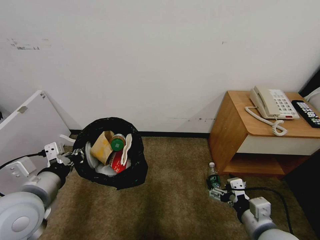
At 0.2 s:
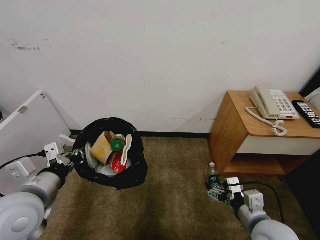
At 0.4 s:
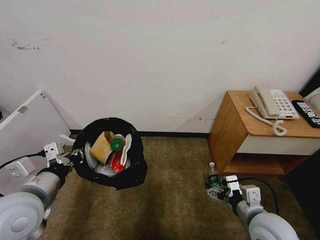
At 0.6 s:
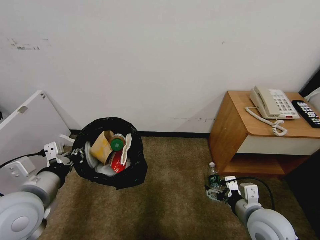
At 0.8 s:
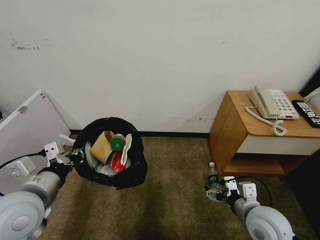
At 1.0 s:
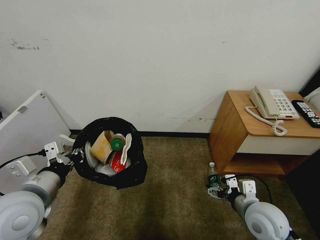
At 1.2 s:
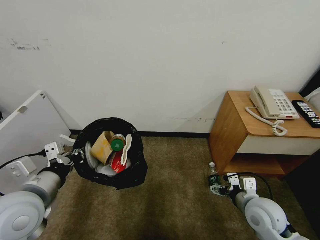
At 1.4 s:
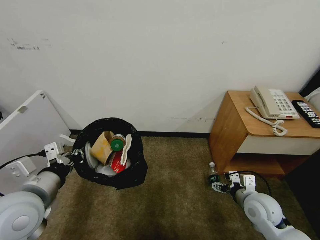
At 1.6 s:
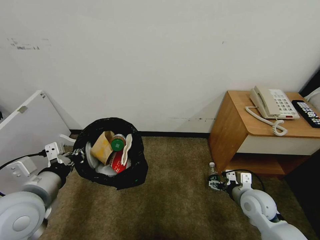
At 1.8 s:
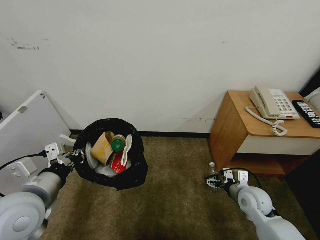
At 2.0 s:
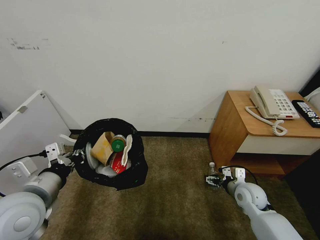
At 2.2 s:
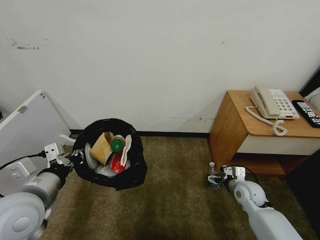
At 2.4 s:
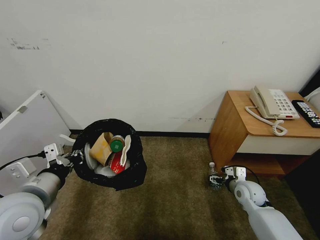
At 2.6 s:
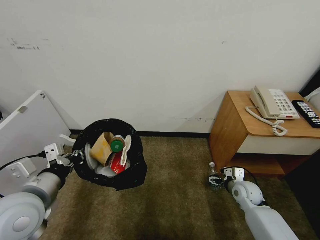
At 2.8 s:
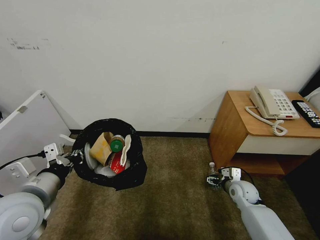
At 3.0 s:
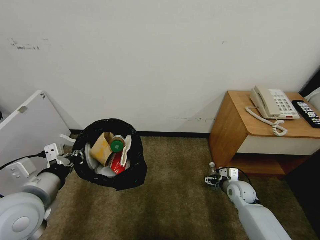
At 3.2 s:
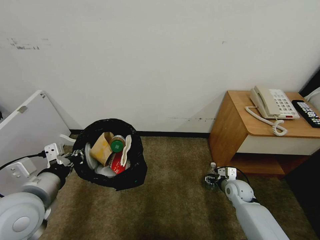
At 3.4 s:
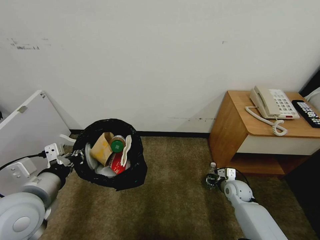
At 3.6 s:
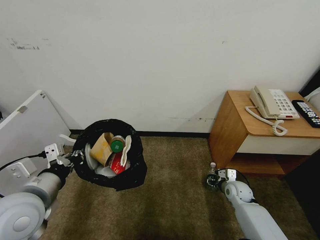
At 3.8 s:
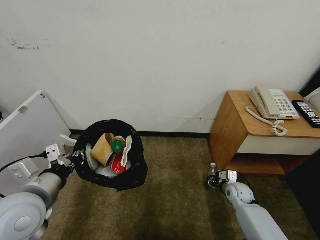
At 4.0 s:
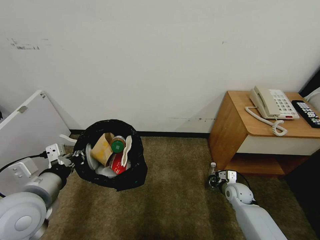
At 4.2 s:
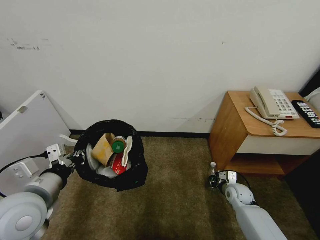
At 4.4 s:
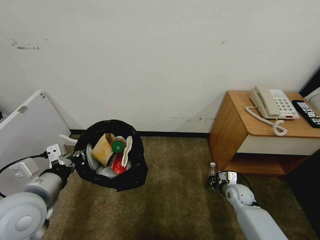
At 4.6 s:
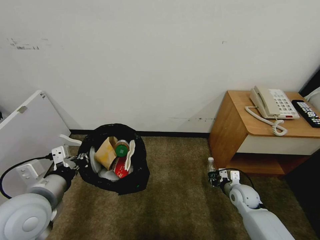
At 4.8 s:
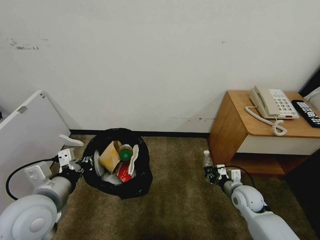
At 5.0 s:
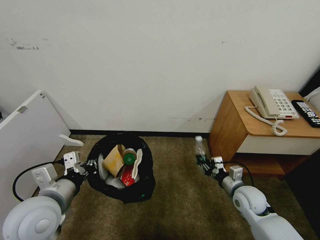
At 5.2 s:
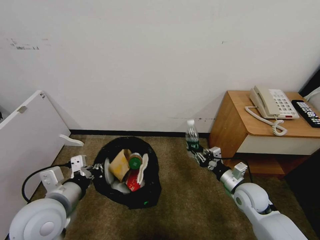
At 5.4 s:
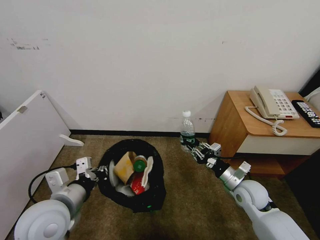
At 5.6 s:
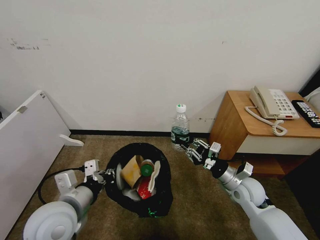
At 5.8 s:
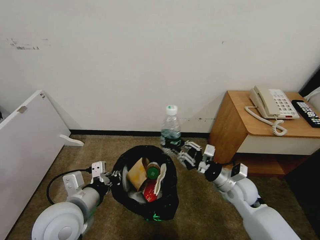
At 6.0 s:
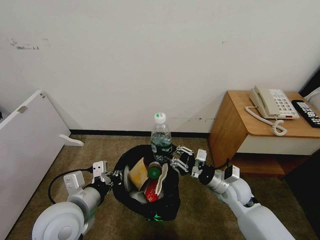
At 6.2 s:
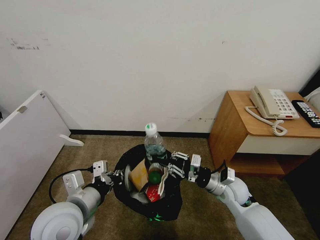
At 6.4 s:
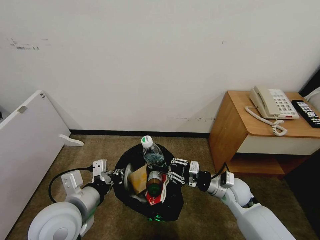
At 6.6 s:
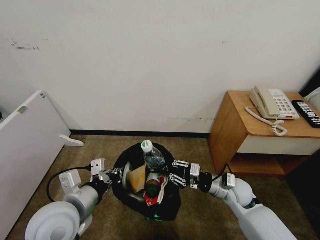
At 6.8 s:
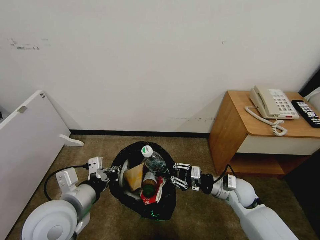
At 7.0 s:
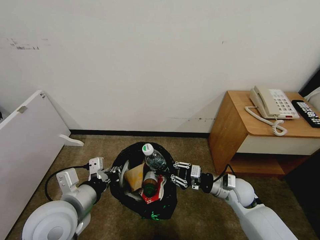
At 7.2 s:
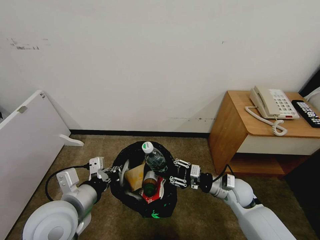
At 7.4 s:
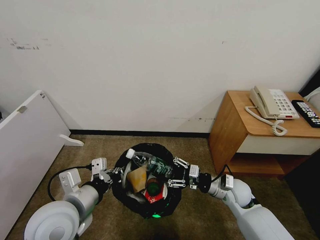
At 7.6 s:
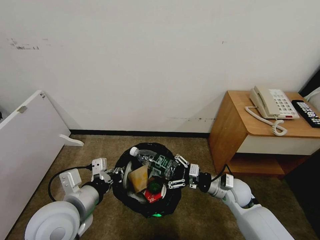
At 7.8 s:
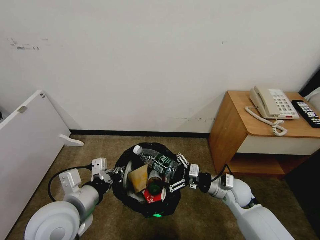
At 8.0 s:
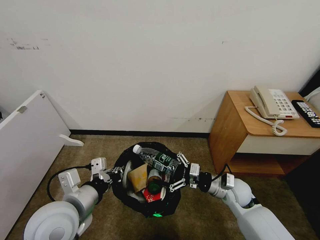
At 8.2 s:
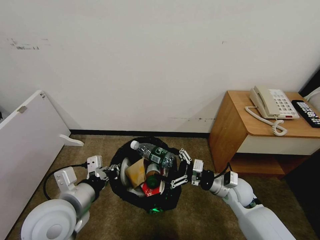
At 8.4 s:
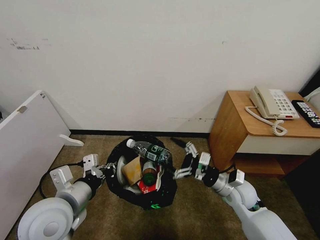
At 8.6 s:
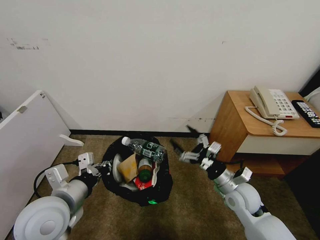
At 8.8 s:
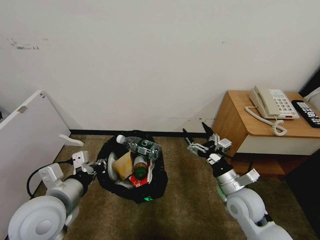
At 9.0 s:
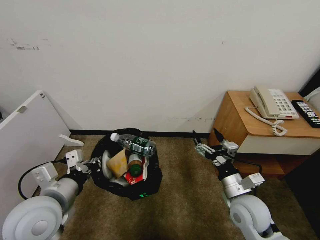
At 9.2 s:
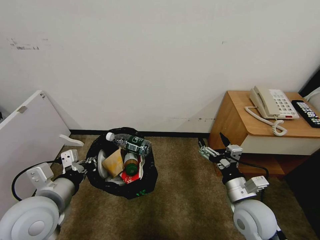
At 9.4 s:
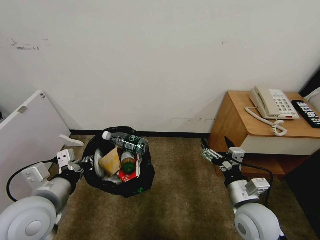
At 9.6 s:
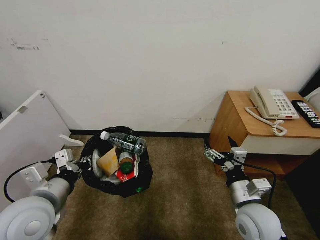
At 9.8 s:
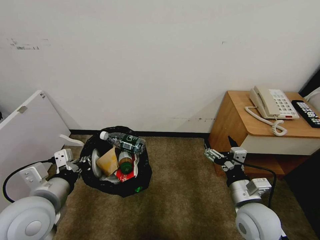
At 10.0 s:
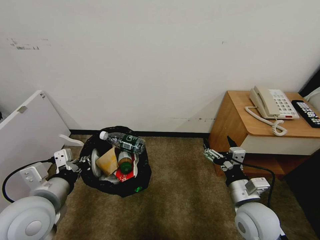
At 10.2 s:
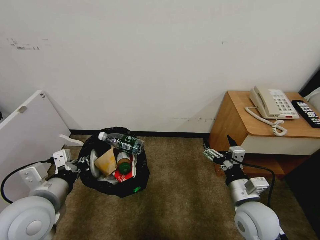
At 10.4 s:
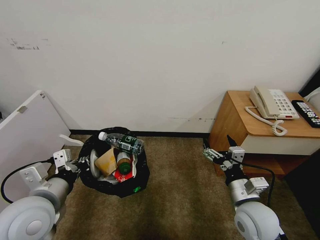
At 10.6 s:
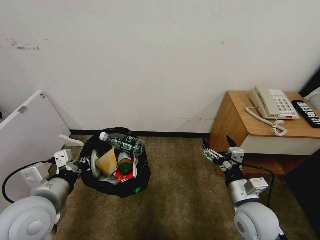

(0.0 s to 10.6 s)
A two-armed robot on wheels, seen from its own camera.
Task of the whole recording: Pick up the trash bin, then pick up the garbage from the floor and place it into the trash bin.
0.0 s - 1.6 s: The right gripper heads forward and downward, covering roughly 15 cm.
1.6 s - 3.0 s: The right gripper shifts approximately 10 cm downward and forward.
3.0 s - 4.6 s: The right gripper closes.
4.6 s - 6.0 s: The left gripper travels to the right by approximately 5 cm. The right gripper is displaced upward and to the left by approximately 15 cm.
6.0 s - 7.6 s: The right gripper opens its fingers.
7.6 s - 9.0 s: The right gripper travels backward and upward by roughly 10 cm.
9.0 s - 10.6 s: There are only small adjustments of the grippers.

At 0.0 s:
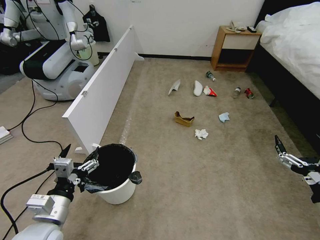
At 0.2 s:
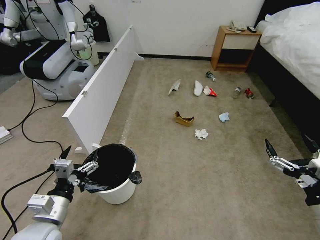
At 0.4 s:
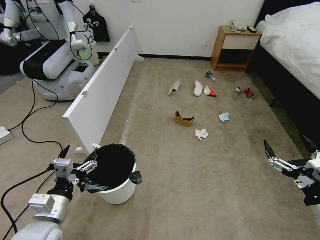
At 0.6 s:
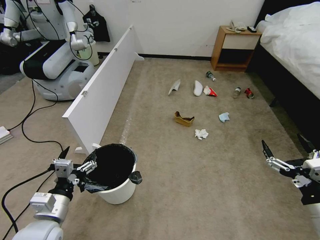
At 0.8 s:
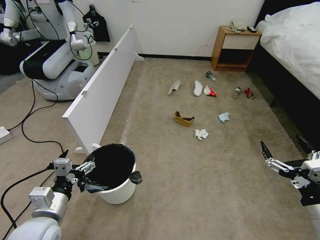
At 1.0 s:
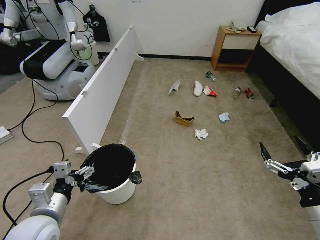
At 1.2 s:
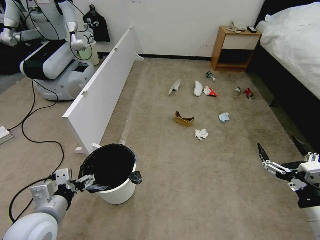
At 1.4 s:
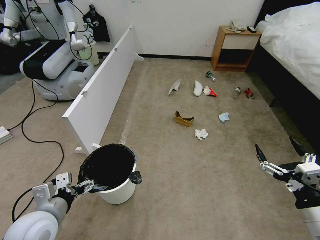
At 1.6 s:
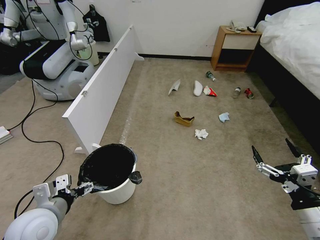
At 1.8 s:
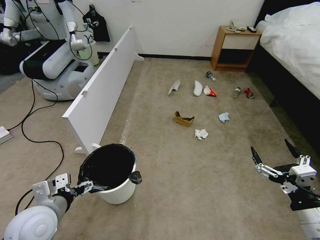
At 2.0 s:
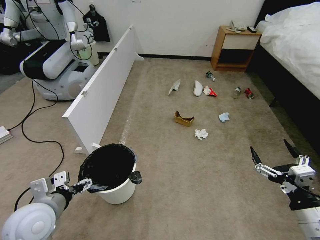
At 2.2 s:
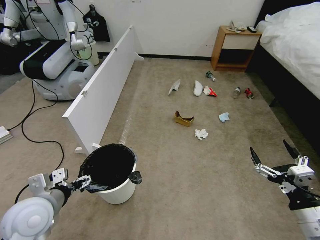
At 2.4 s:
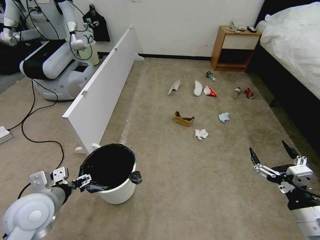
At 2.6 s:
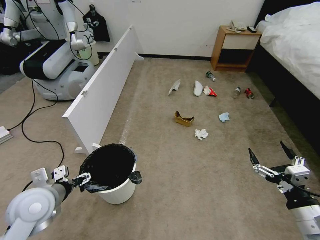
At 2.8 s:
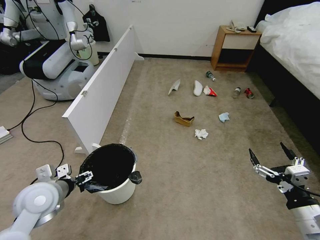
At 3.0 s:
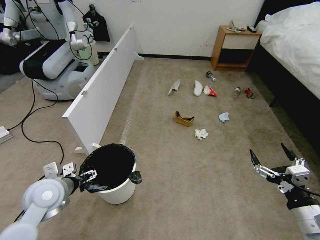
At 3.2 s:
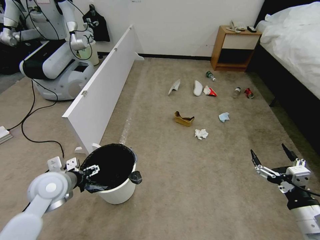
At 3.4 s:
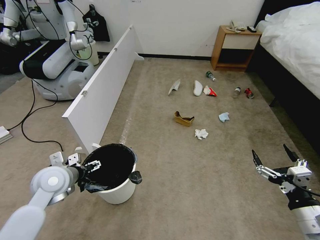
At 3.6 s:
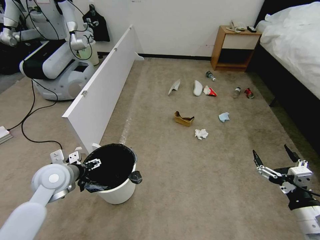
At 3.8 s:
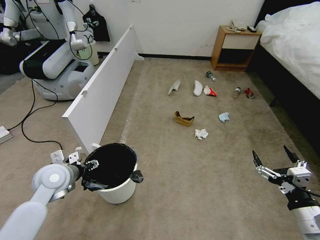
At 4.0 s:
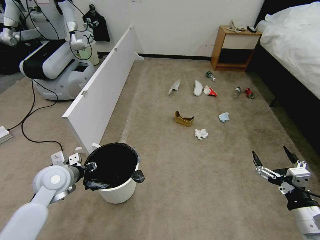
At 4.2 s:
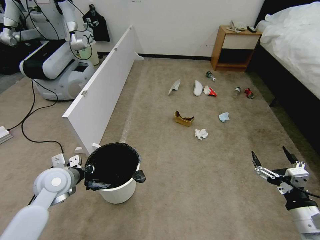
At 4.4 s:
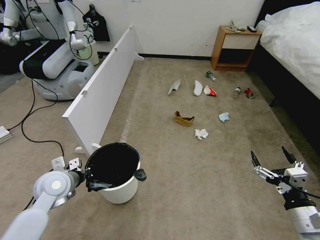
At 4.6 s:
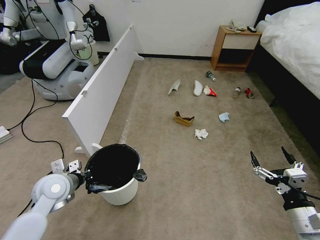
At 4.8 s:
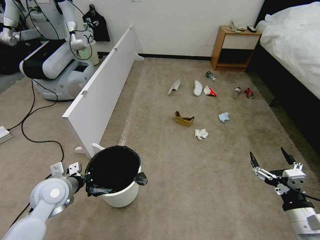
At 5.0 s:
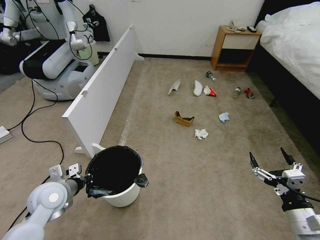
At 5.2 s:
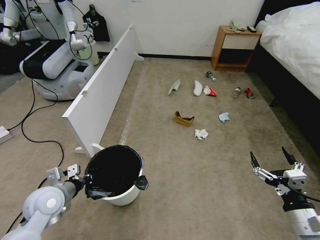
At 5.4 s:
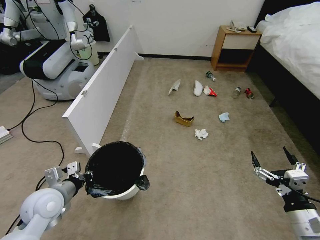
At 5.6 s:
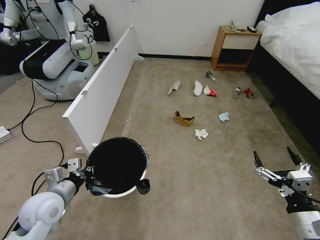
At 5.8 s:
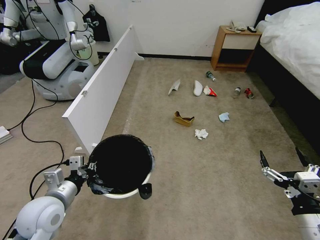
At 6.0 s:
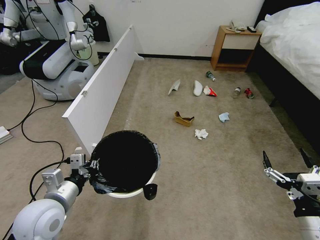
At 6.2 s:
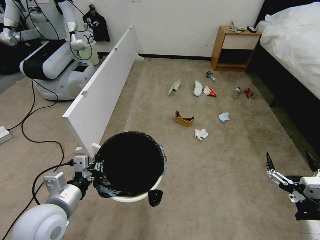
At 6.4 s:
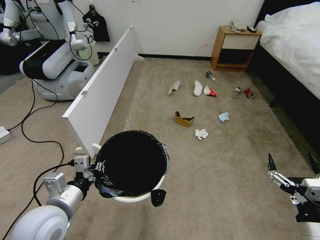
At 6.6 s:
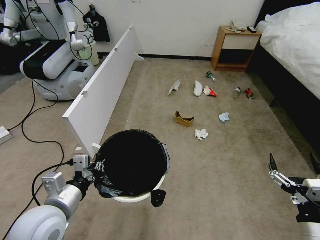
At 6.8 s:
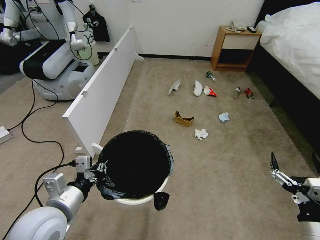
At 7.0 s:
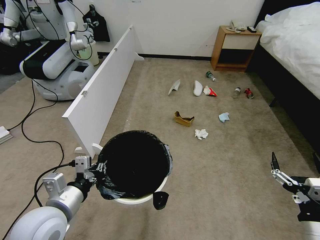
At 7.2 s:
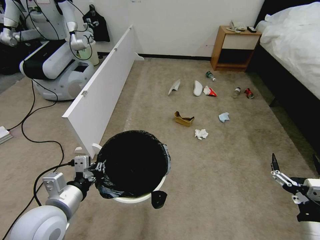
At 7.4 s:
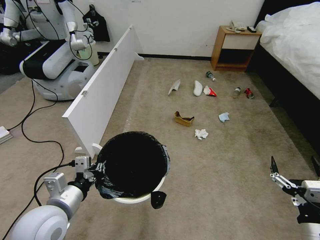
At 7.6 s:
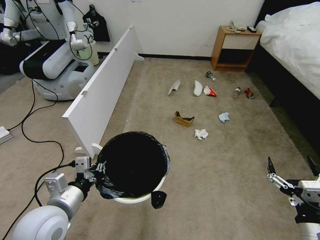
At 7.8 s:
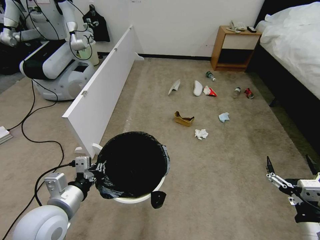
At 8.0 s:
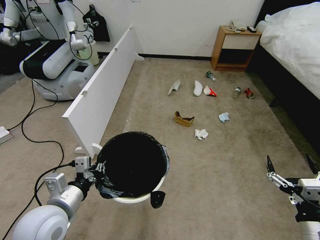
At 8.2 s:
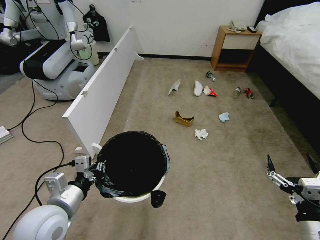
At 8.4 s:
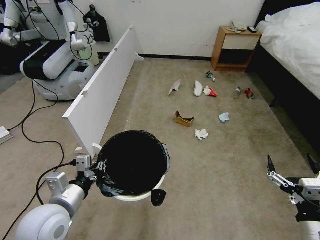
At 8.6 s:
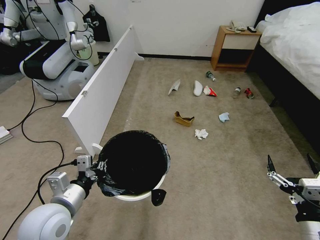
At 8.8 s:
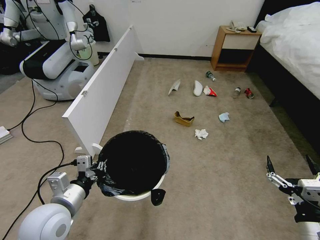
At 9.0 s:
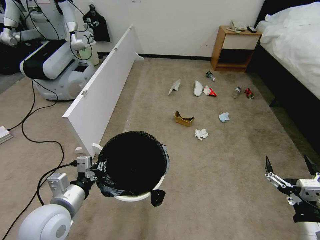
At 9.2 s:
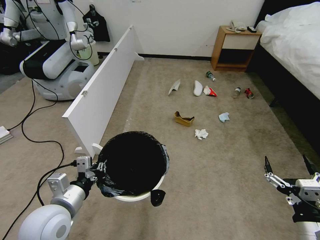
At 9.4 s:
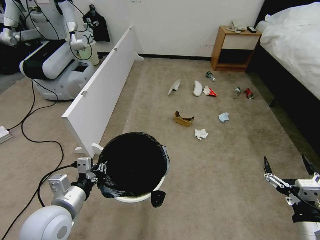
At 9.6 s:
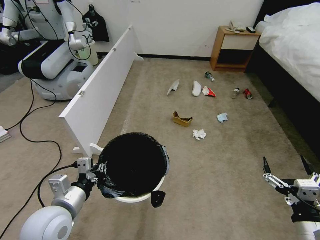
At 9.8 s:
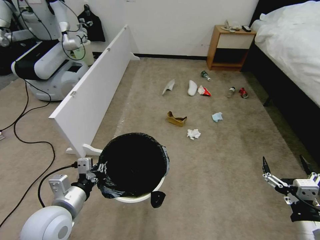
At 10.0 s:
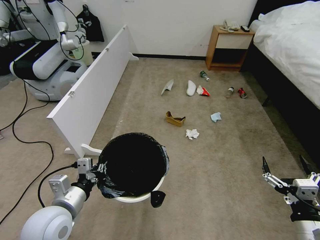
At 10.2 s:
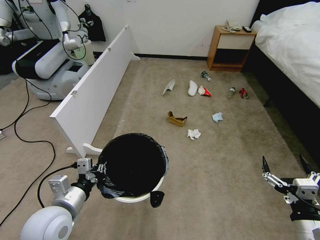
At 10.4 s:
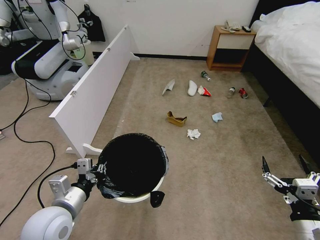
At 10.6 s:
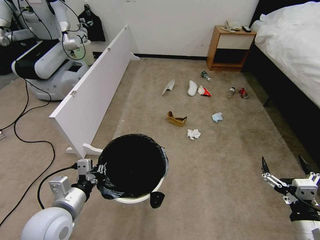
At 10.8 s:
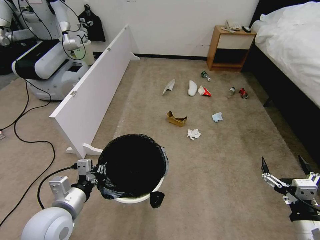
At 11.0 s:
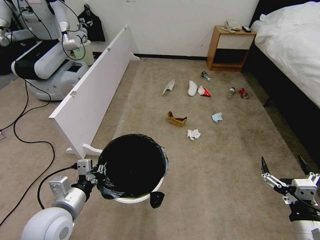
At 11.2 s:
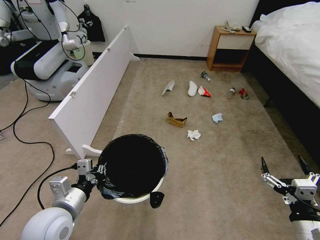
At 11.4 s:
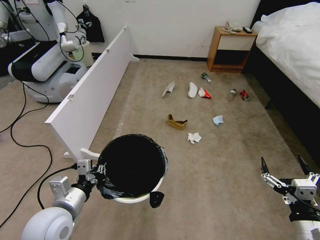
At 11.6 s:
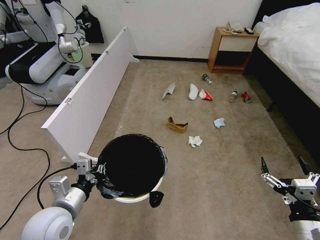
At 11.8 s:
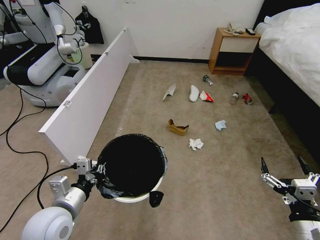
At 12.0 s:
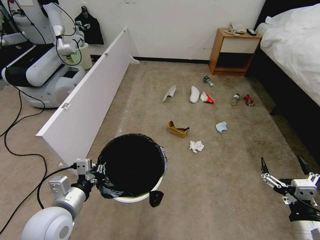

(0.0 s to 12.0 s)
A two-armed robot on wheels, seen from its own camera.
Task of the whole recording: Pick up the trash bin, then pick up the garbage from the floor and place it into the trash bin.
1.6 s - 3.0 s: The left gripper heads forward, covering roughly 10 cm.
3.0 s - 4.4 s: The left gripper closes.
4.4 s - 6.0 s: The left gripper goes approximately 10 cm backward.
6.0 s - 9.0 s: The grippers move only a little.
10.4 s - 12.0 s: Both grippers stay about where they are.
